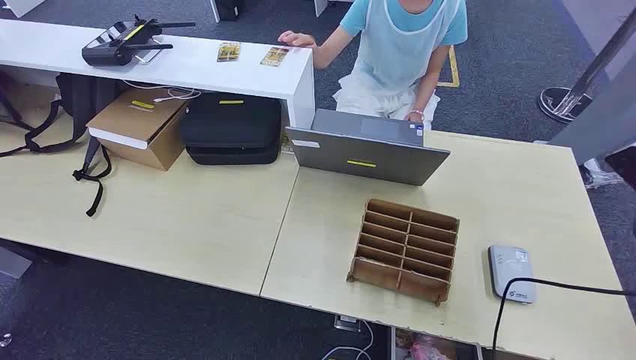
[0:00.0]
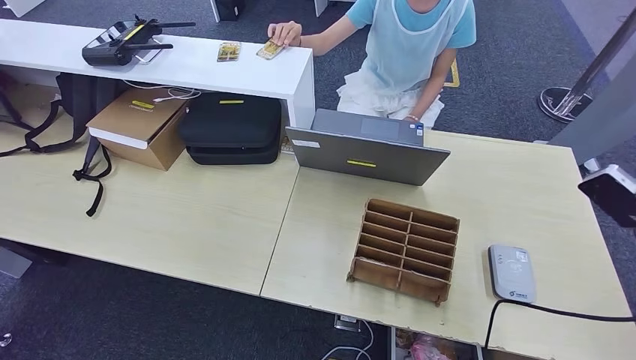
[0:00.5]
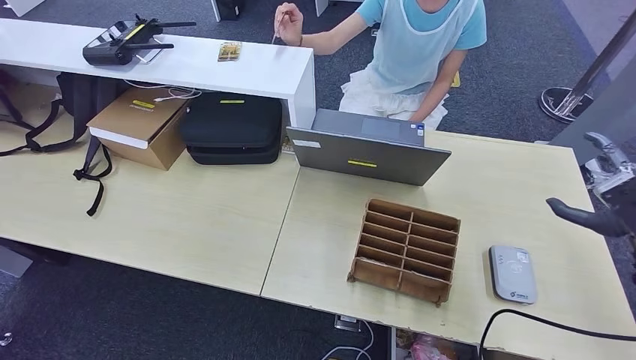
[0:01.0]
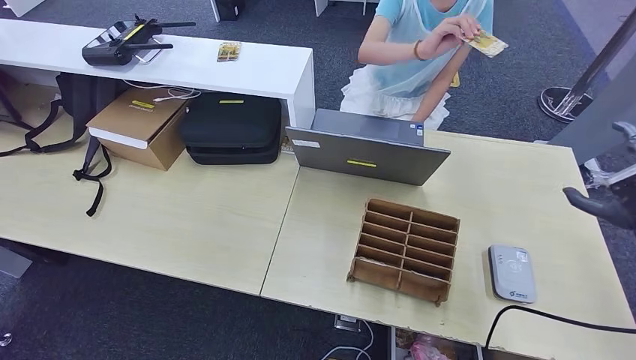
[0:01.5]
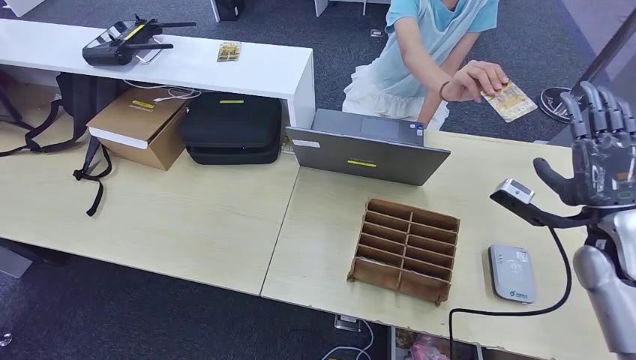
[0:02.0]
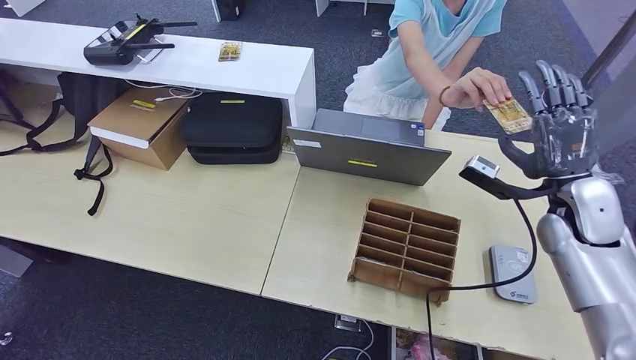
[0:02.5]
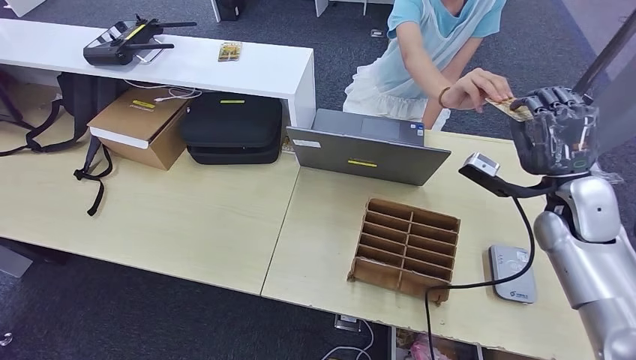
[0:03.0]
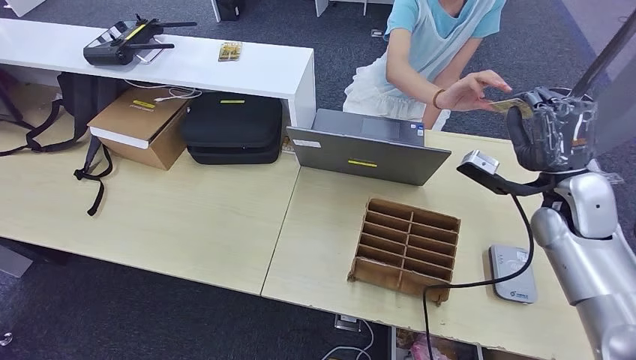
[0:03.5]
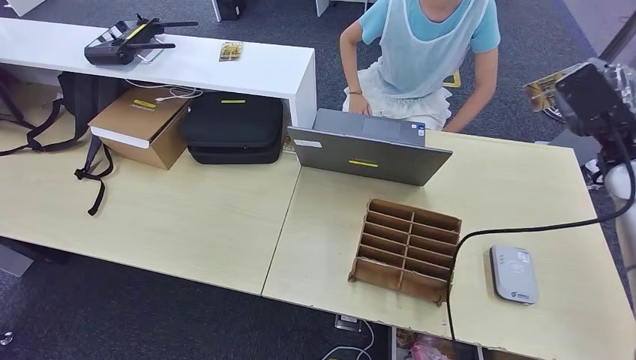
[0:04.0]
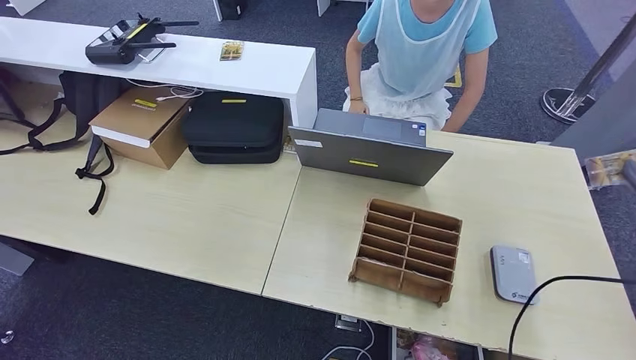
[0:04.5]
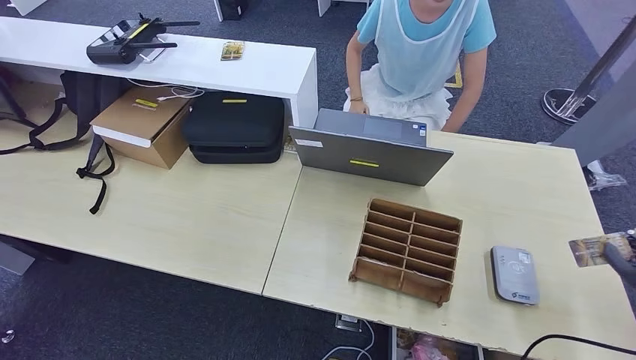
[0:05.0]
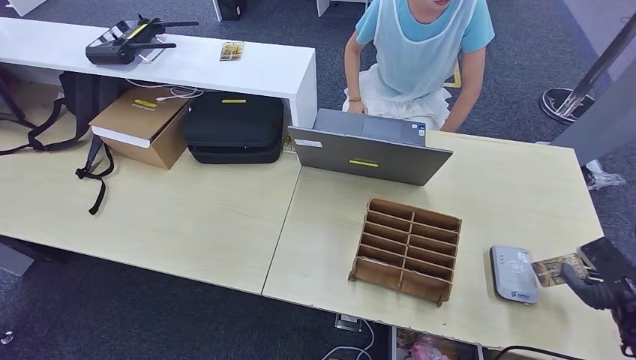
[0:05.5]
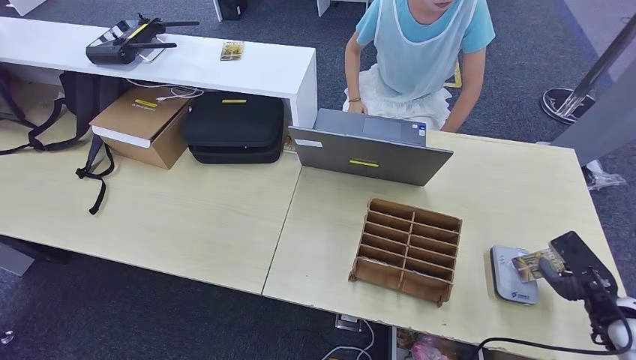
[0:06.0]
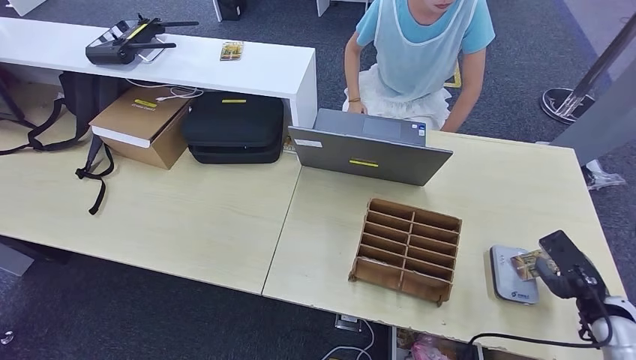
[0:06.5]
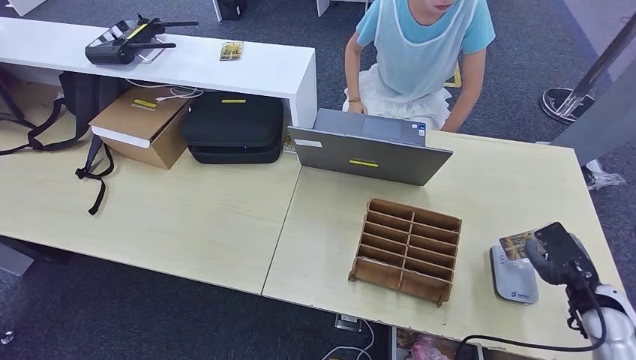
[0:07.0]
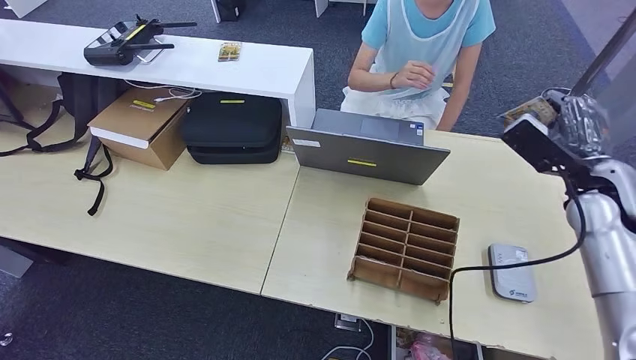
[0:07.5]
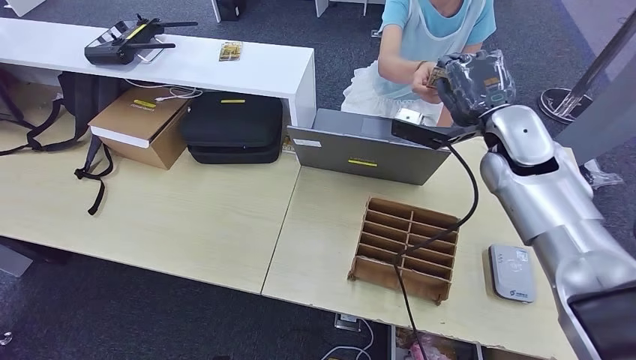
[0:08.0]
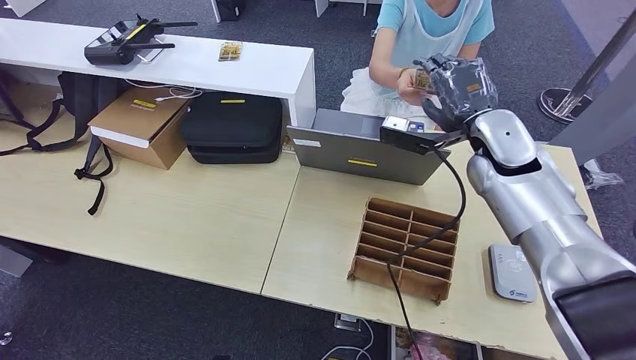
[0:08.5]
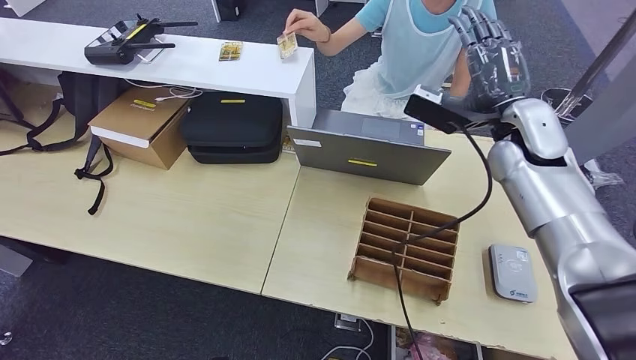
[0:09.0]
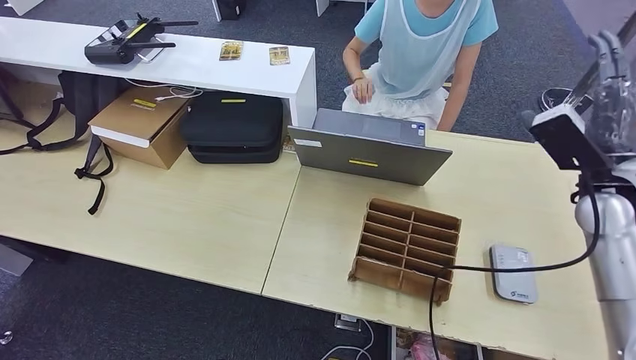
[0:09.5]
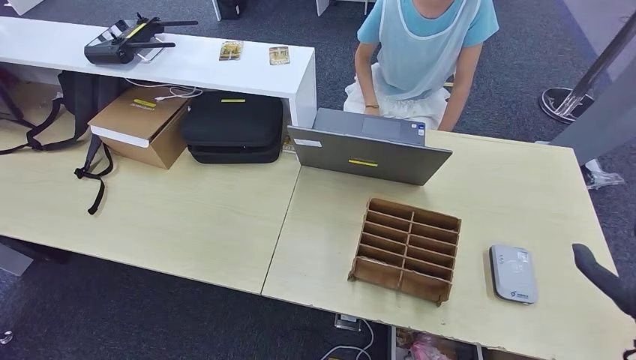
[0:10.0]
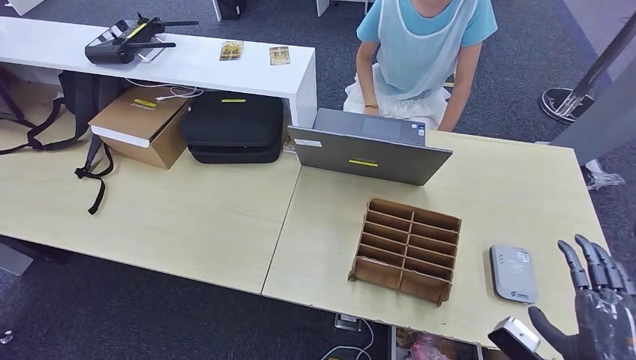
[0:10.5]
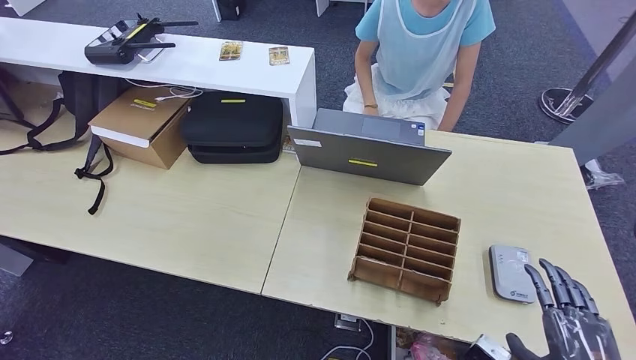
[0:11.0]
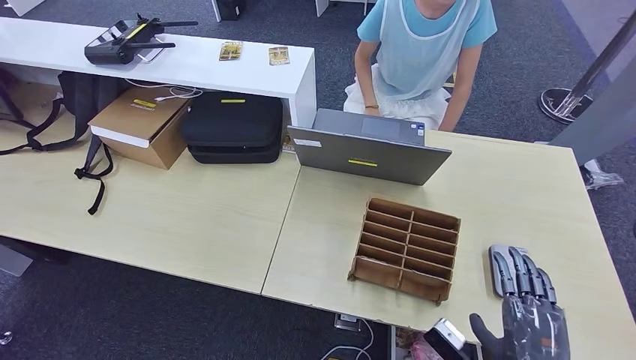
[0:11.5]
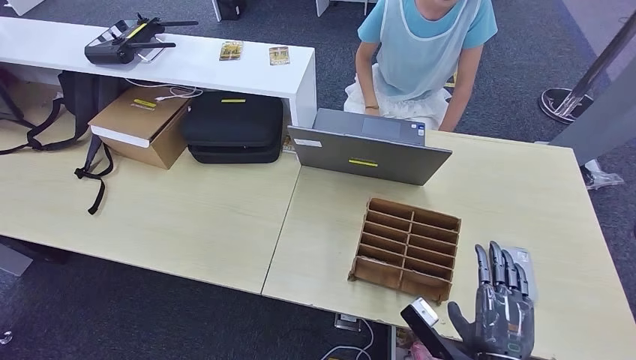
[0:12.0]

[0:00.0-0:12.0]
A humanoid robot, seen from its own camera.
Step, 0:00.0 to 0:04.0: Take the ID card from the person's hand.
Step, 0:04.5 to 0:06.0: Place the ID card on the card reader.
Step, 0:06.5 to 0:09.5: Hand the ID card to the person.
0:02.0 to 0:04.0: The right hand shifts roughly 10 cm forward and upward.
0:04.0 to 0:06.0: The right hand moves downward and backward, approximately 25 cm.
0:06.0 to 0:08.0: The right hand is displaced to the left, upward and forward by about 35 cm.
0:08.0 to 0:10.0: The right hand travels backward, to the right and downward by some 30 cm.
0:10.0 to 0:12.0: The right hand heads to the left and downward, covering about 20 cm.

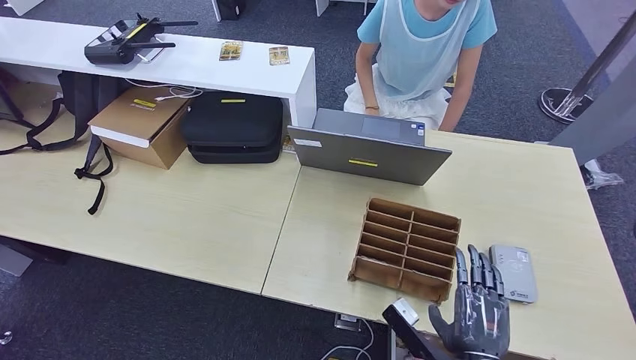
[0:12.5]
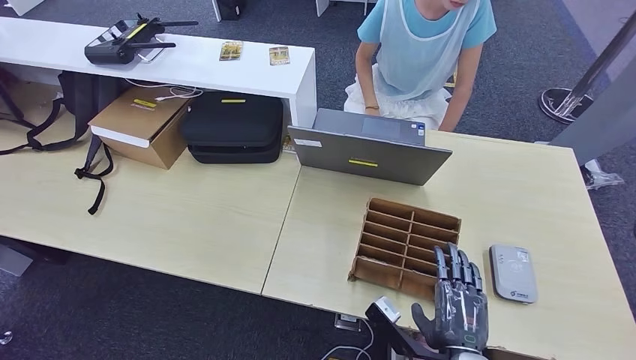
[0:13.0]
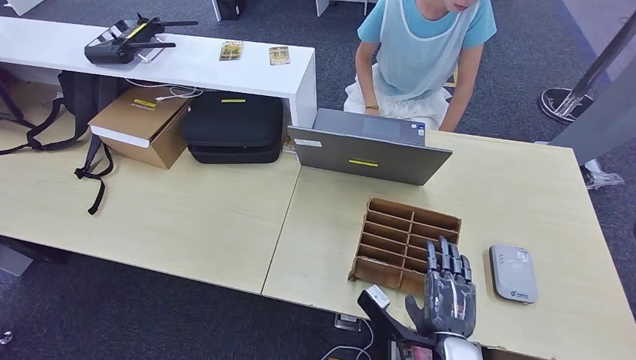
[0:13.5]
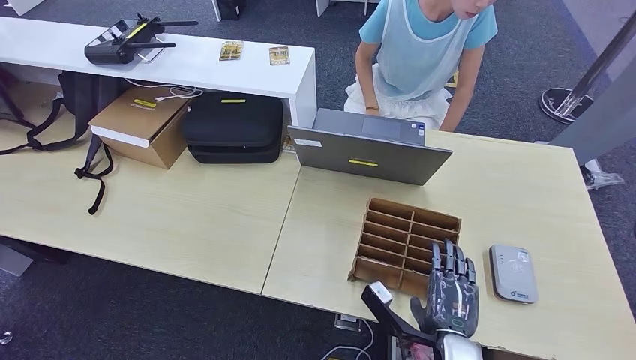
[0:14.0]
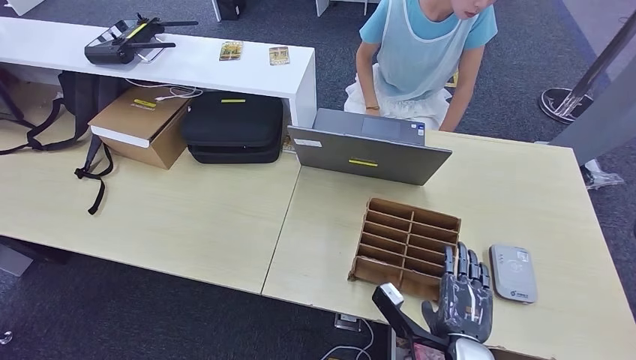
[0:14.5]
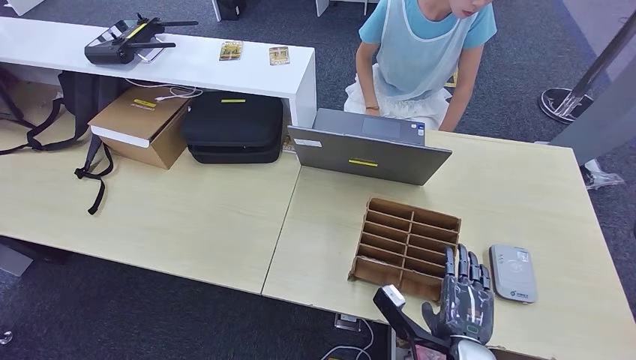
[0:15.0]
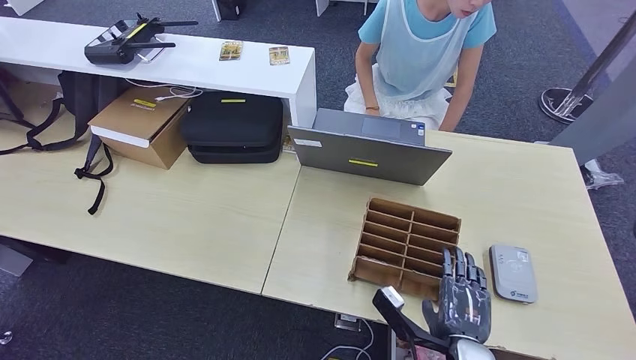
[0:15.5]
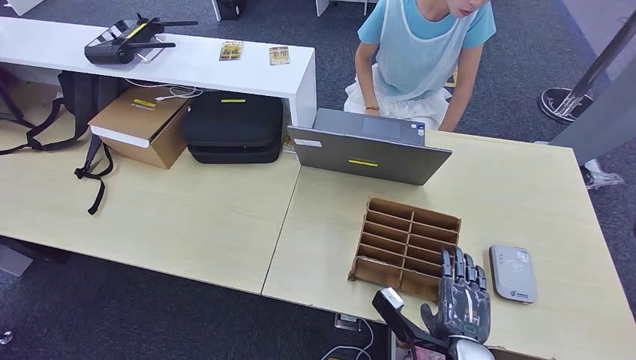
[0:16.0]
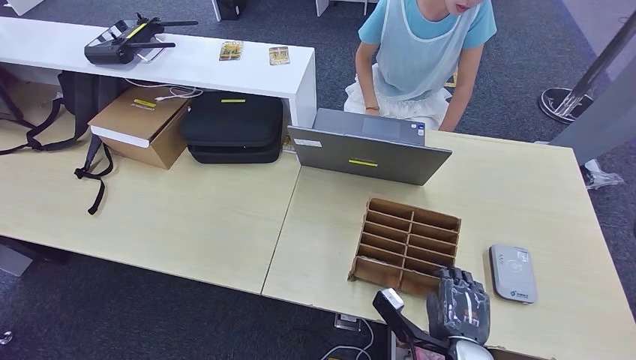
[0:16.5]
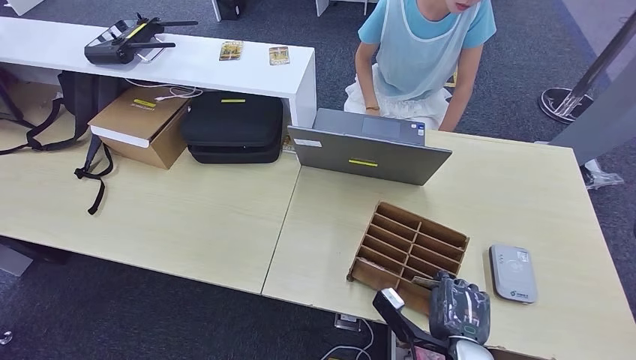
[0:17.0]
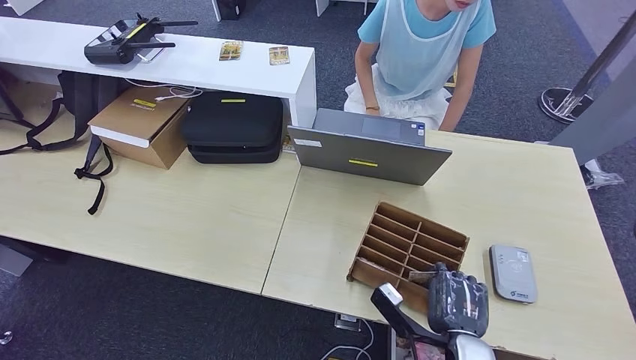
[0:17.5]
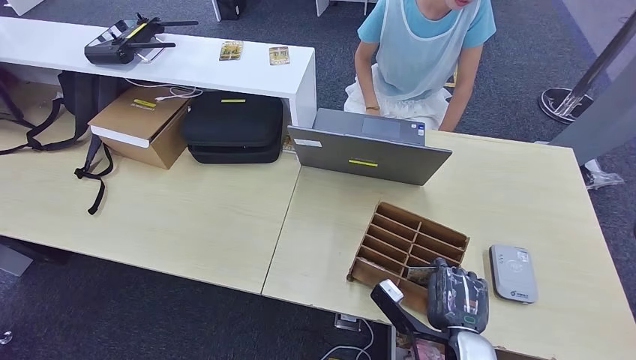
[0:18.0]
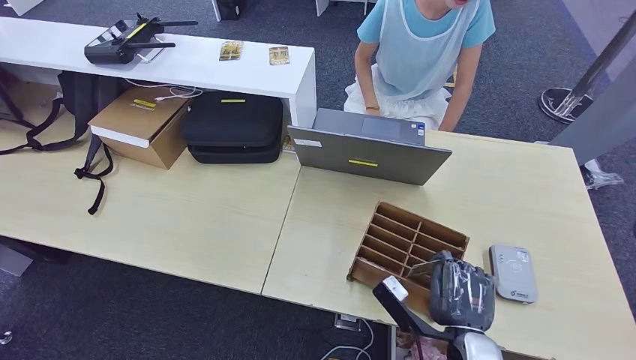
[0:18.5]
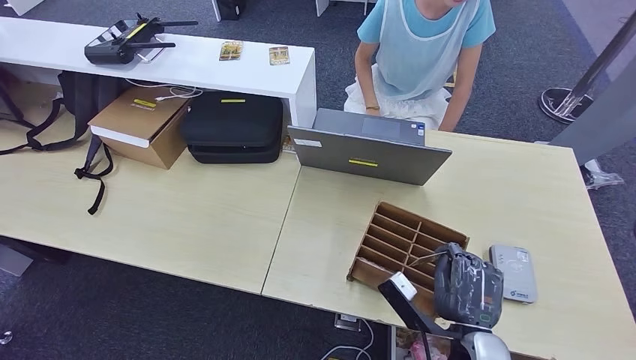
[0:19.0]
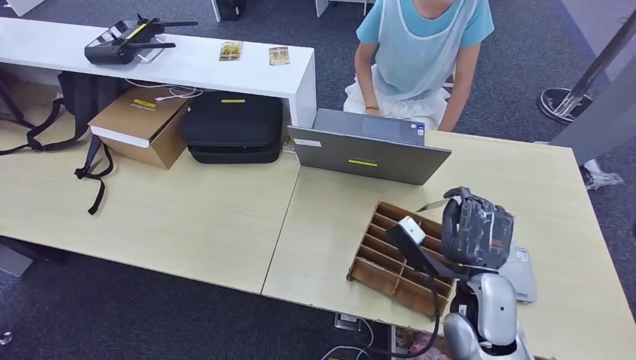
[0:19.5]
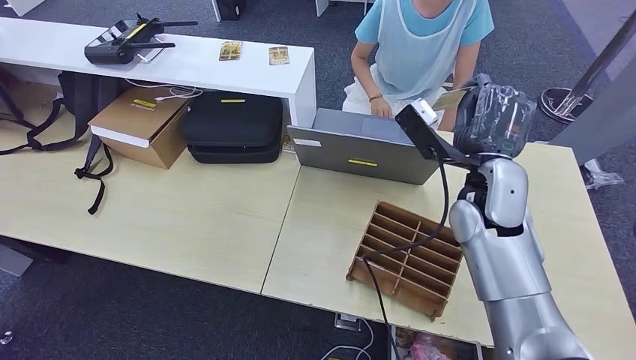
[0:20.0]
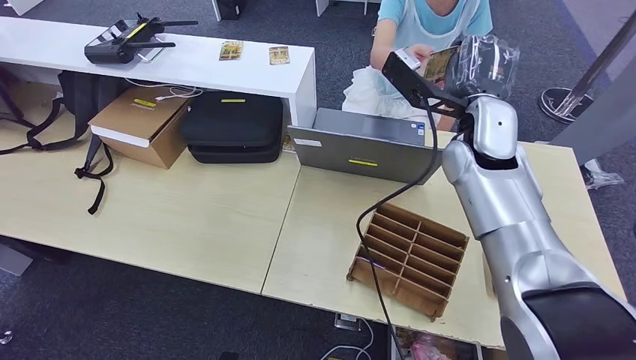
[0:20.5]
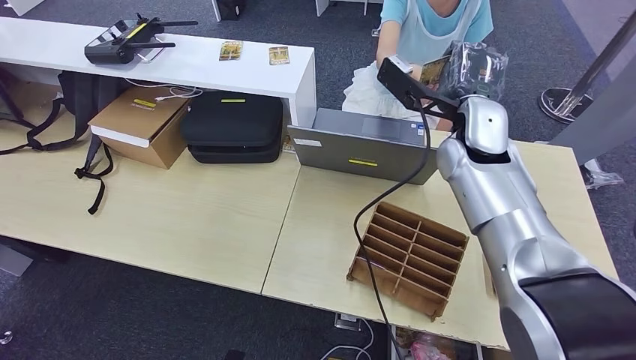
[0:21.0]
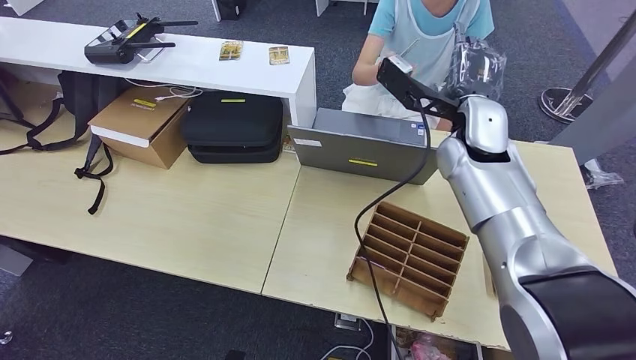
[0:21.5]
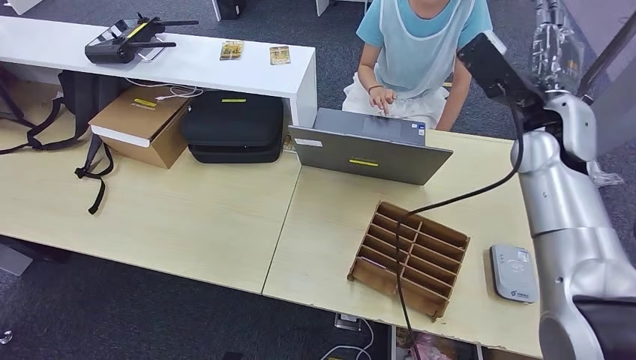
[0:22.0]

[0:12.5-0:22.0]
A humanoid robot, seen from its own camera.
Step, 0:12.5 to 0:18.5: Pick up the room key from the key card box.
Step, 0:19.0 to 0:22.0: Hand the room key to the person.
0:12.5 to 0:14.5: The hands make only small movements.
0:14.5 to 0:16.5: The two hands keep their place.
0:16.5 to 0:18.0: The hands make only small movements.
0:18.0 to 0:20.0: The right hand shifts about 30 cm forward and upward.
0:20.0 to 0:22.0: The right hand moves to the right, upward and forward, approximately 10 cm.
